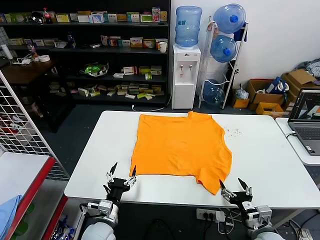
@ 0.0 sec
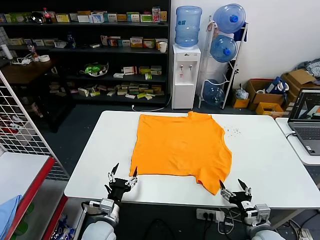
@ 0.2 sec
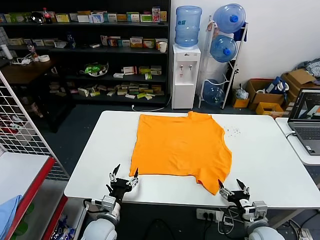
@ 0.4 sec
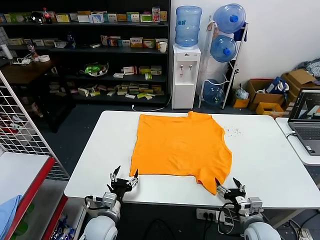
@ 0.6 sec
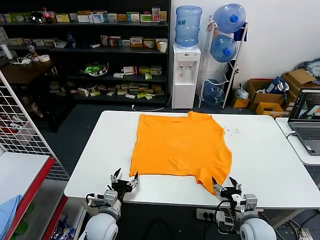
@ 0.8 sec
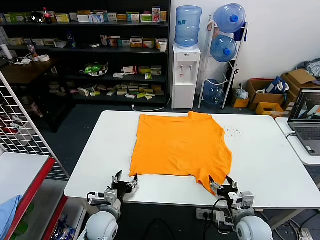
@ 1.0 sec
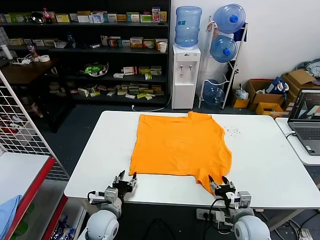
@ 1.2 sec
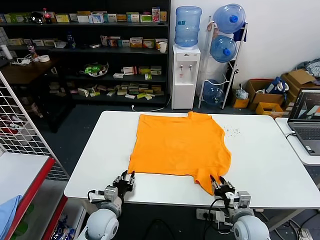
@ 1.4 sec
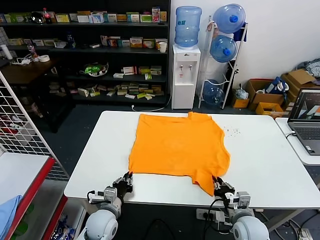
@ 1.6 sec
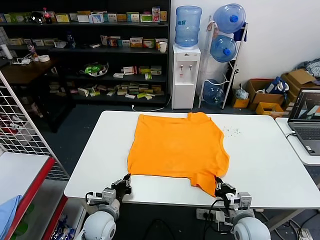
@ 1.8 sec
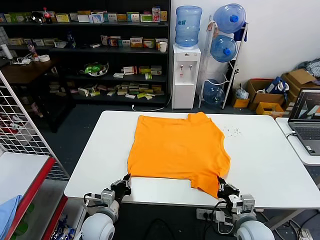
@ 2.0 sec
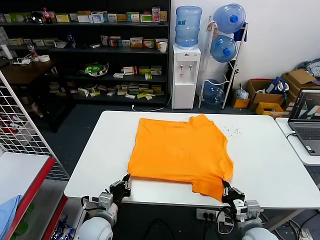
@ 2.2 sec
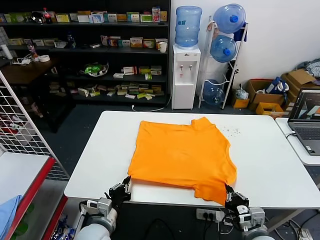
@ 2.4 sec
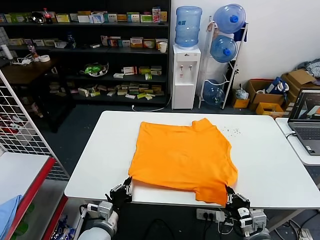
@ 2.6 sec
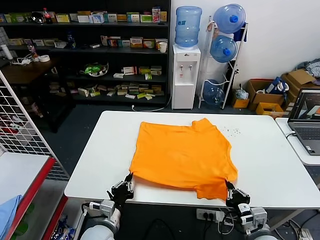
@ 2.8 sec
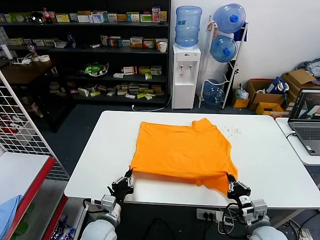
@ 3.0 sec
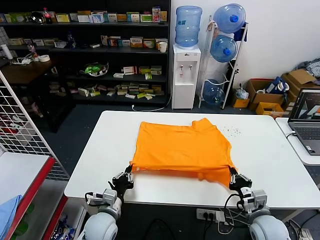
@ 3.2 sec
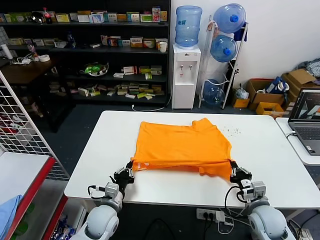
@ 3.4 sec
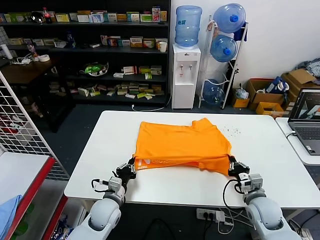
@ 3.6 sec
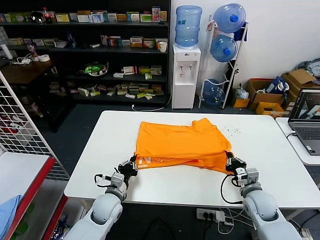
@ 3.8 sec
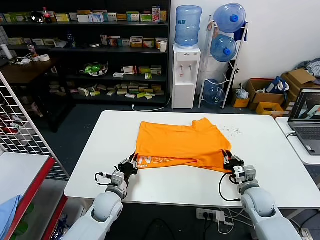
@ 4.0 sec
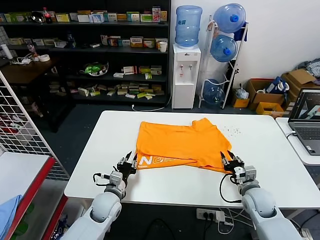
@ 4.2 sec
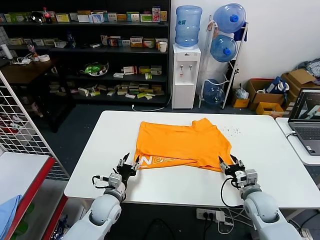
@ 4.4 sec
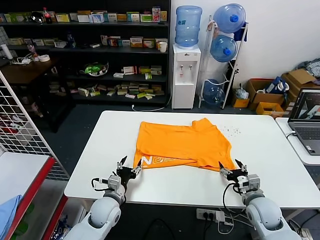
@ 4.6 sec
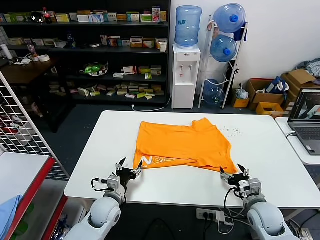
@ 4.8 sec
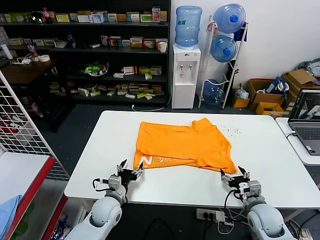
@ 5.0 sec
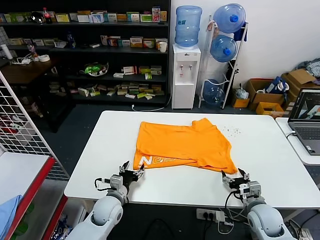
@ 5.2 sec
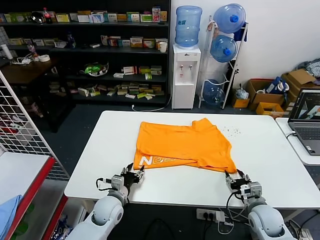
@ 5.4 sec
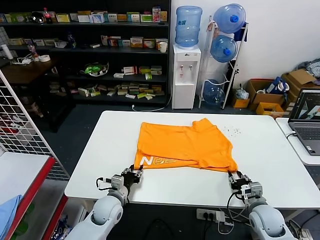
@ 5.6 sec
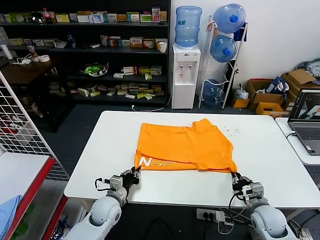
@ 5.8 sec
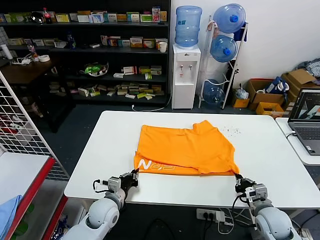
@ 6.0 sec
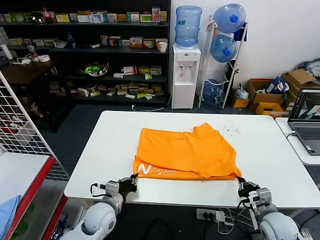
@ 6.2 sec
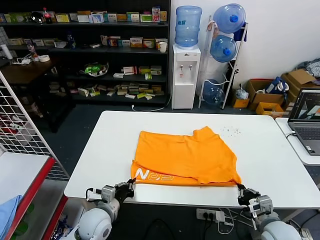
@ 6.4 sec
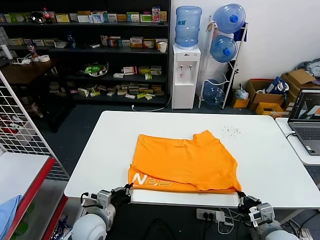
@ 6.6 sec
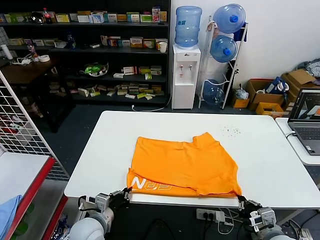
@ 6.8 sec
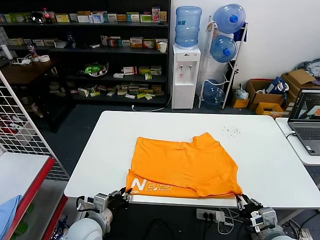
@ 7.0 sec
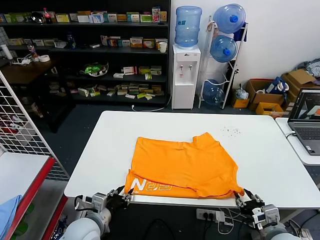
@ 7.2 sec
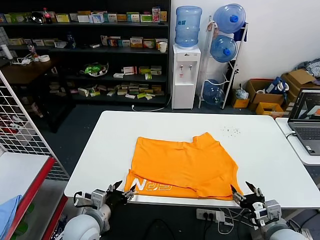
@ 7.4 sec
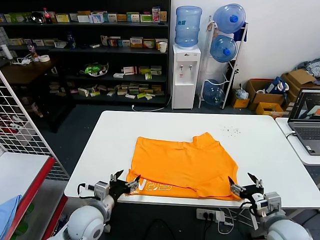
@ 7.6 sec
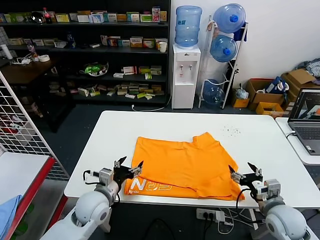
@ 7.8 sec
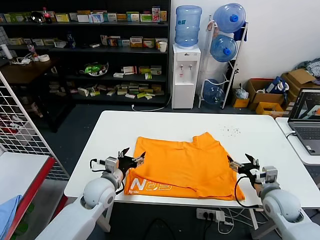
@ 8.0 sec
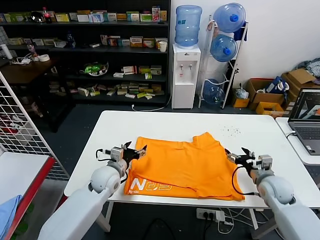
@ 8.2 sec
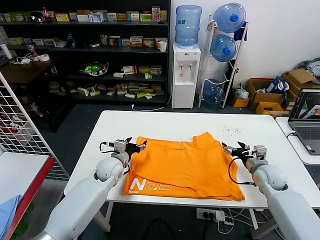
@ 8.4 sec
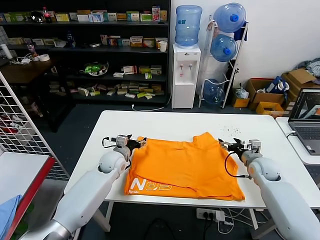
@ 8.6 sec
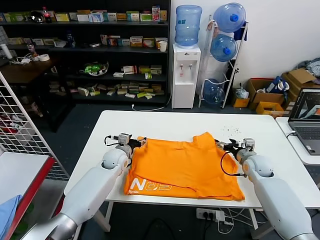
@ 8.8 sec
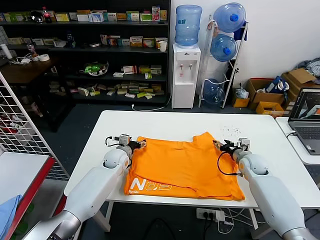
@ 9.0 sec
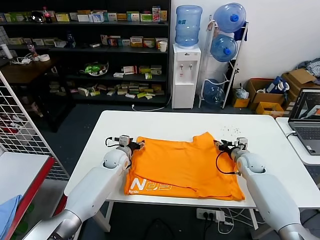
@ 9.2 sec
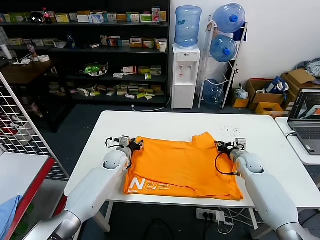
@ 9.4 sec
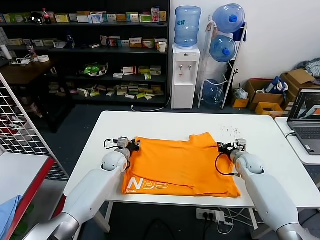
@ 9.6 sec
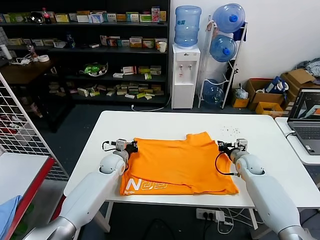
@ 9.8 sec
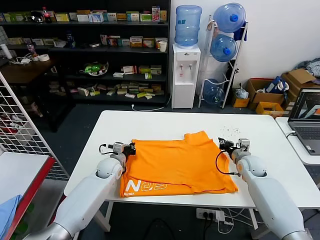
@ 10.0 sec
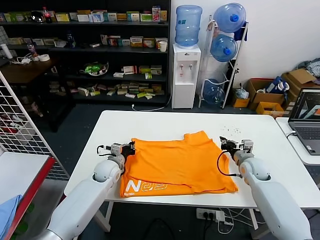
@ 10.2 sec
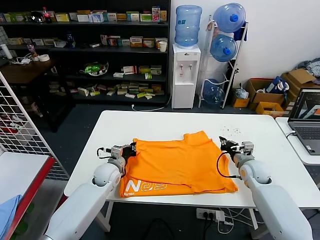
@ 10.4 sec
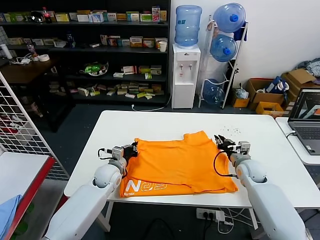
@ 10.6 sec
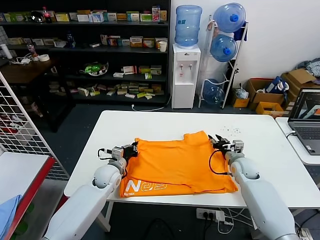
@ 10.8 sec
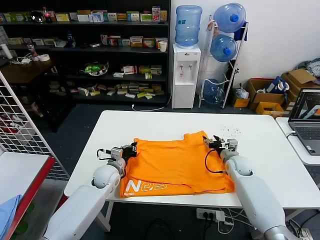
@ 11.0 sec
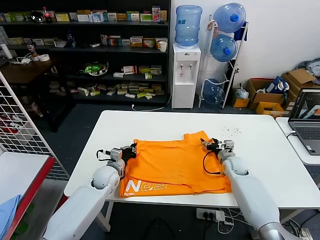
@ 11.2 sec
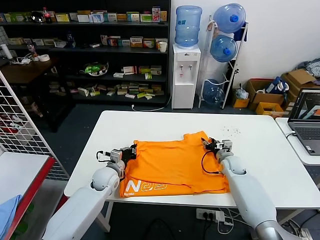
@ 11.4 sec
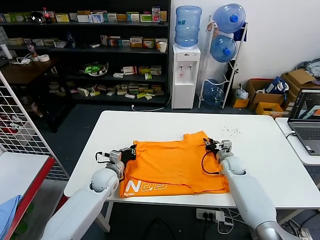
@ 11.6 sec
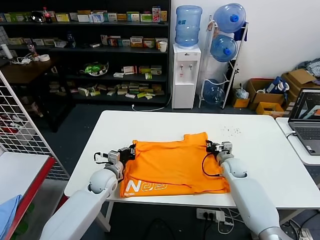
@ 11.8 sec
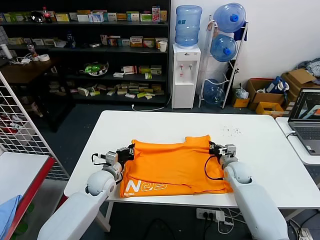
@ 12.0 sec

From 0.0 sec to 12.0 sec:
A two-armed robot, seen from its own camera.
Task of the whole recording: fold and organize the clothes.
Step, from 0.0 sec to 1.8 sec: use both grippers simultaneously to clamp the lower edge of the clothing fabric.
Step, from 2.0 sec to 4.0 sec: use both grippers to drag the lower edge of the fabric forward and fold it over the upper edge.
Step, from 4.2 sec to 7.2 sec: Drag the clothes downward with both gripper.
Step, from 7.4 sec to 11.8 sec: use both grippers simultaneously to clamp the upper edge of the clothing fabric.
From 3.0 sec to 4.4 sec: The grippers both shift forward by some 10 cm. The left gripper opens up, while the right gripper opens its fingers.
From 4.4 sec to 6.0 sec: The left gripper closes its fingers, while the right gripper moves about 5 cm, and closes up.
From 6.0 sec to 7.6 sec: The right gripper goes about 5 cm upward, and opens up. Meanwhile the left gripper shifts some 10 cm upward and backward, and opens its fingers.
From 7.6 sec to 9.0 sec: Both grippers move forward, roughly 25 cm.
From 9.0 sec to 10.4 sec: The right gripper closes up; the left gripper is displaced backward by about 5 cm, and closes up.
From 10.4 sec to 12.0 sec: The right gripper opens and closes again.

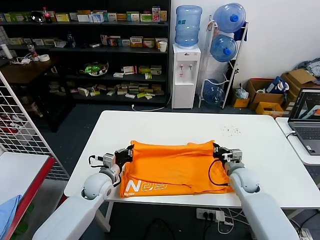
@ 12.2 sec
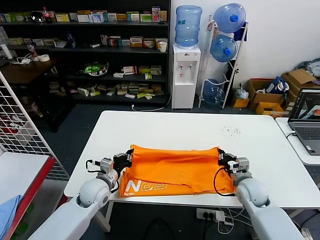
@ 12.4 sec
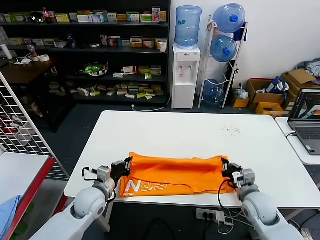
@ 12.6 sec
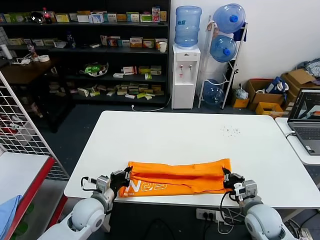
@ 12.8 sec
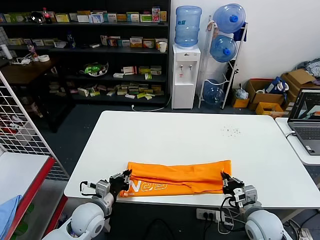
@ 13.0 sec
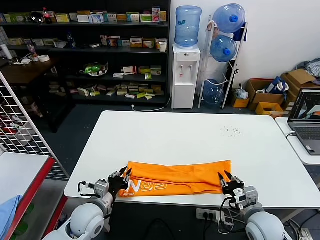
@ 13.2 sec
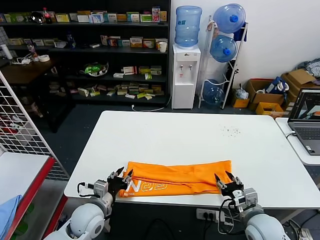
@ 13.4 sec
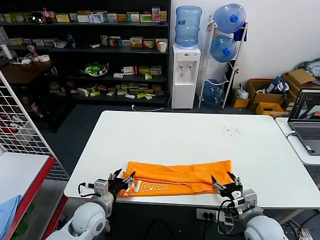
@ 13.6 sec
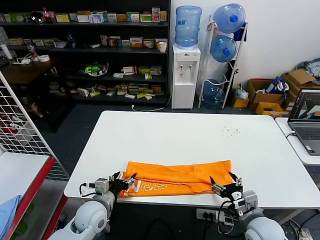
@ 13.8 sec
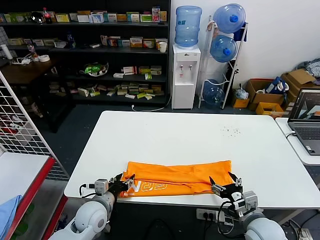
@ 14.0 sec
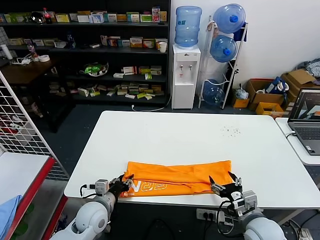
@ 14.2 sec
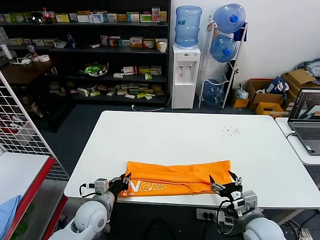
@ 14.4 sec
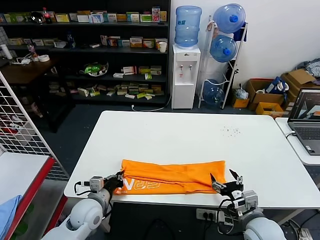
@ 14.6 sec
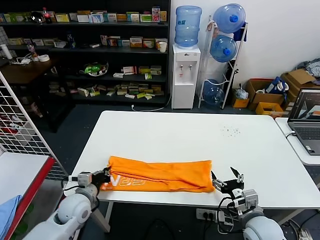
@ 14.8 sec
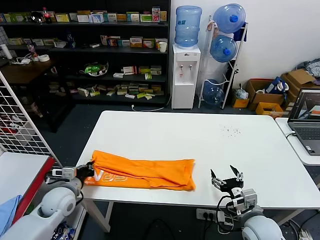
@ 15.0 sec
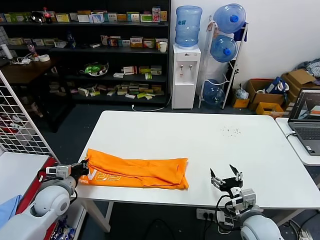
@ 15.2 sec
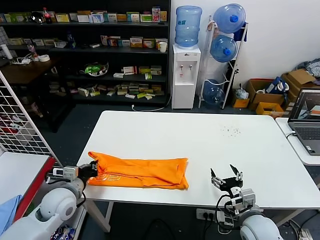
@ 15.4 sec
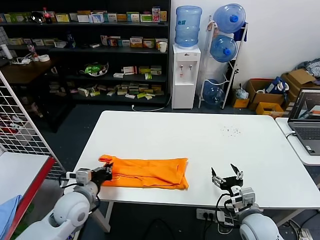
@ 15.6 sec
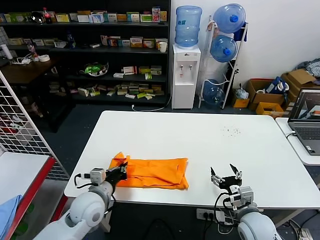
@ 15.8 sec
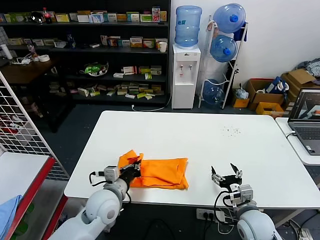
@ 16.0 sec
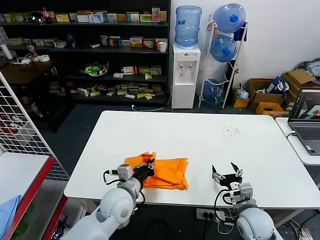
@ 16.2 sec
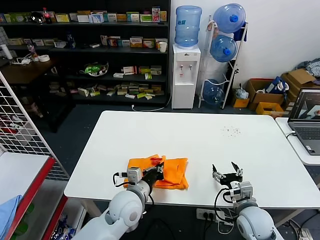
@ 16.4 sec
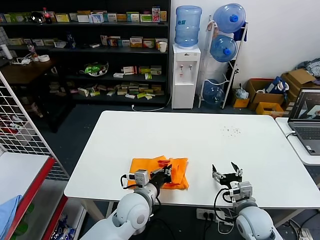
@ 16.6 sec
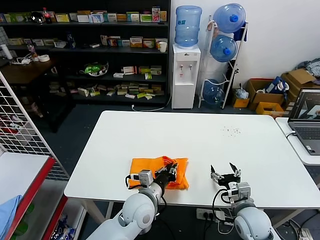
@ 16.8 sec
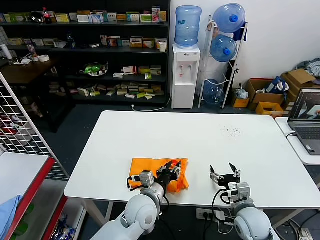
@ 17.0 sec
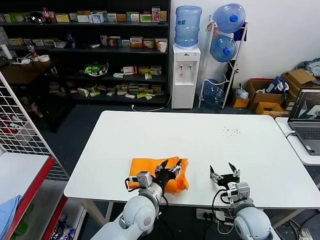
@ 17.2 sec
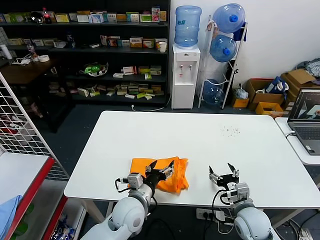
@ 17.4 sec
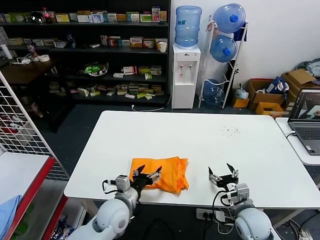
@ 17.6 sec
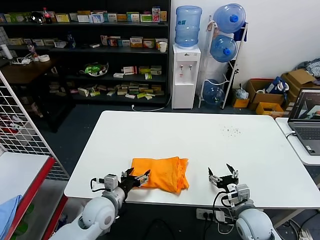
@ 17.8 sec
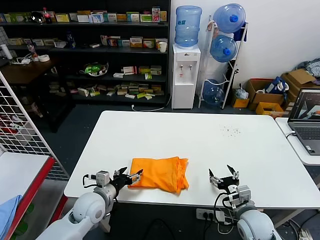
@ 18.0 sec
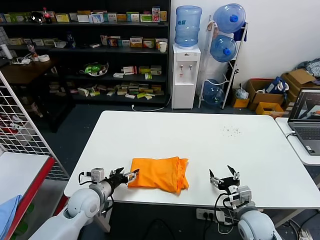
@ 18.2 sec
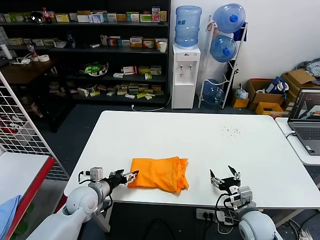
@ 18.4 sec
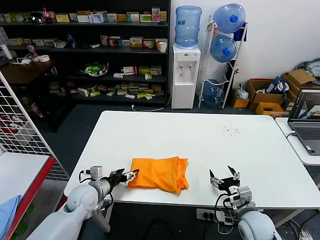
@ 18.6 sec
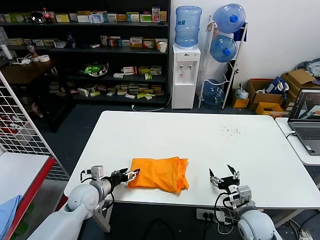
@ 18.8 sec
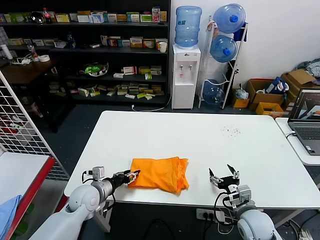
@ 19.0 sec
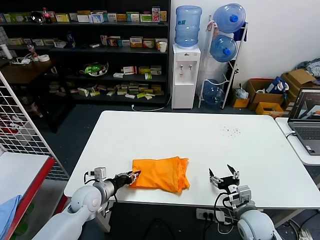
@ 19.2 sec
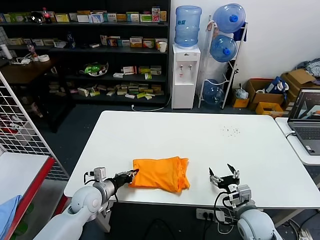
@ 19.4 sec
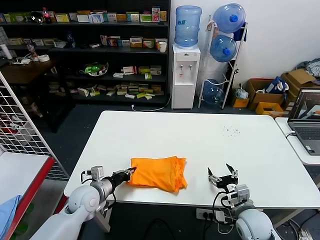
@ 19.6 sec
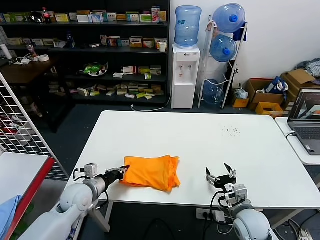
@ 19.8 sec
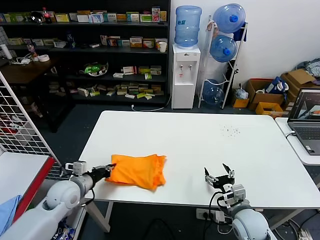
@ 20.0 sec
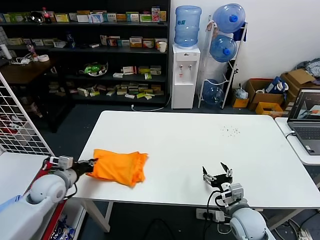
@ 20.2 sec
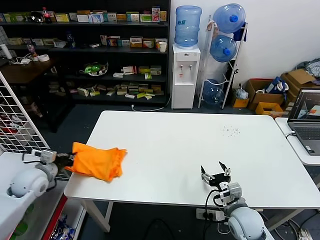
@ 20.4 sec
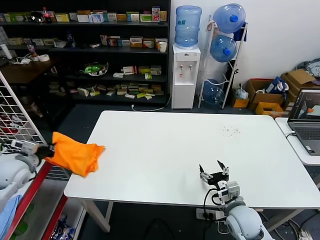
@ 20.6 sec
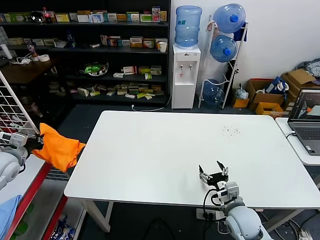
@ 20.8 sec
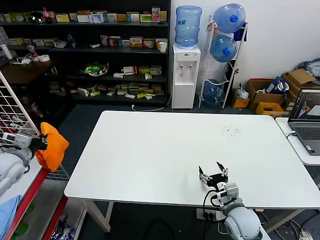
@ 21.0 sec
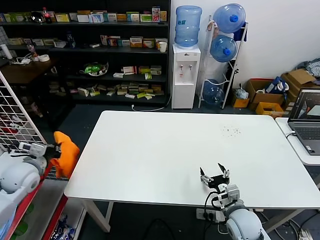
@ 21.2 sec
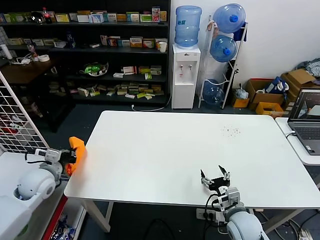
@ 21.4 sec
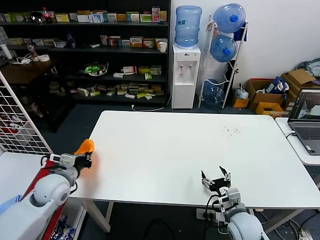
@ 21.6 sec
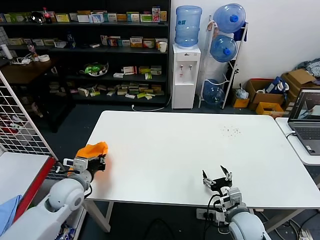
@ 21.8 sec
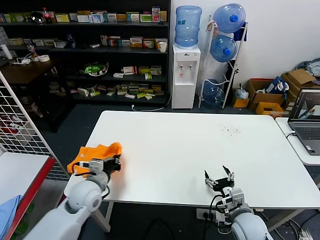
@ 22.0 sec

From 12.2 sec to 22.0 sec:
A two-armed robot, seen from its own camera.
Task of the whole recording: fold and organize the clothes.
Step, from 12.2 sec to 13.2 sec: use both grippers to drag the upper edge of the fabric backward and fold it over the lower edge.
Step, from 13.4 sec to 14.4 sec: use the left gripper to clamp the left edge of the fabric.
Step, from 14.6 sec to 16.8 sec: use the left gripper to drag the left edge of the fabric to the left and folds it over the right edge.
From 12.2 sec to 13.6 sec: The left gripper moves backward, approximately 10 cm, and opens its fingers. The right gripper is displaced backward by some 15 cm, and opens up.
From 13.6 sec to 15.0 sec: The left gripper goes roughly 10 cm to the left, and closes its fingers.
From 15.0 sec to 16.4 sec: The left gripper moves to the right, roughly 20 cm.
From 16.4 sec to 17.8 sec: The left gripper moves to the left, approximately 10 cm, and opens its fingers.
From 17.8 sec to 19.2 sec: The left gripper travels to the left by some 5 cm, and closes.
From 19.2 sec to 20.6 sec: The left gripper goes roughly 25 cm to the left and upward, and closes.
From 20.6 sec to 22.0 sec: The left gripper travels to the right by roughly 20 cm.
